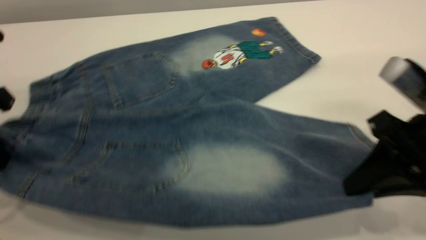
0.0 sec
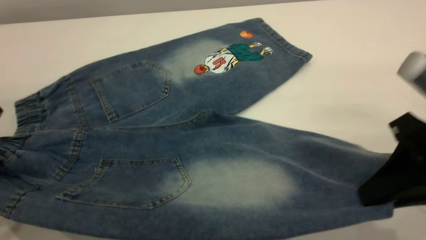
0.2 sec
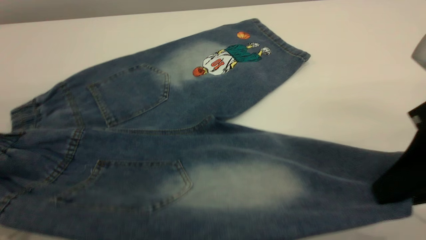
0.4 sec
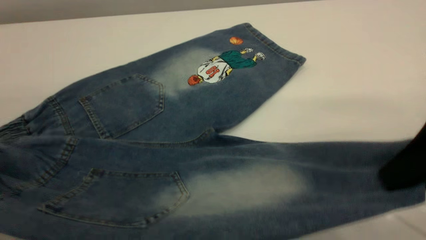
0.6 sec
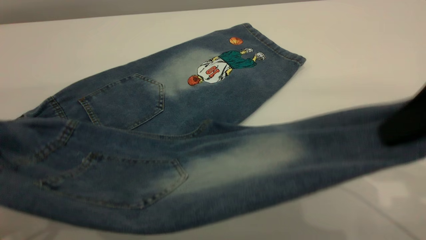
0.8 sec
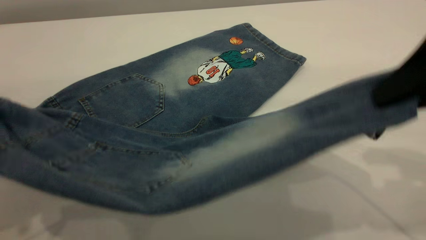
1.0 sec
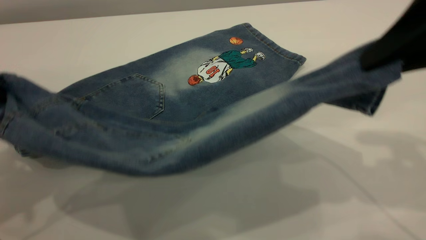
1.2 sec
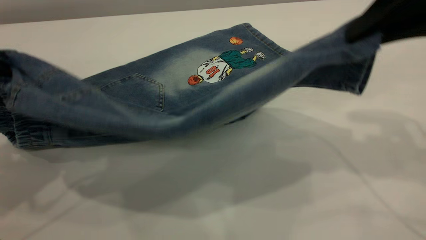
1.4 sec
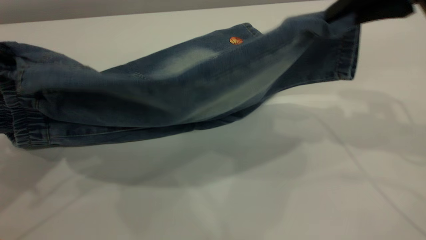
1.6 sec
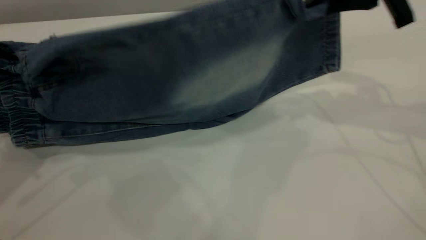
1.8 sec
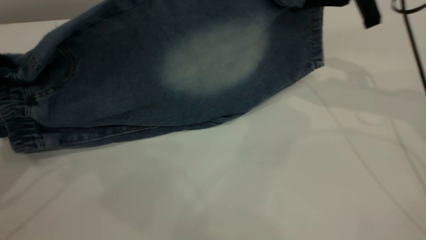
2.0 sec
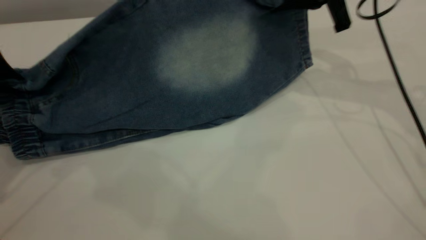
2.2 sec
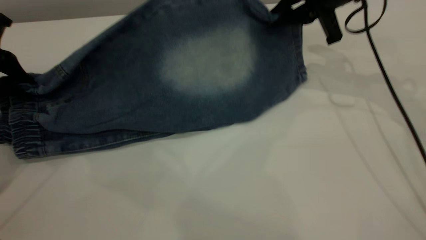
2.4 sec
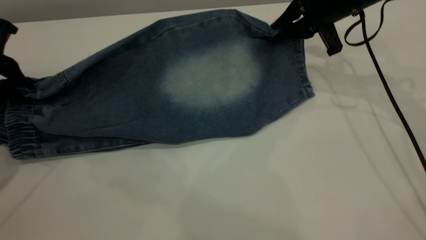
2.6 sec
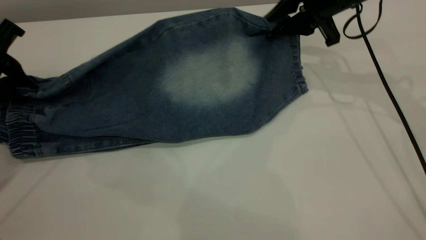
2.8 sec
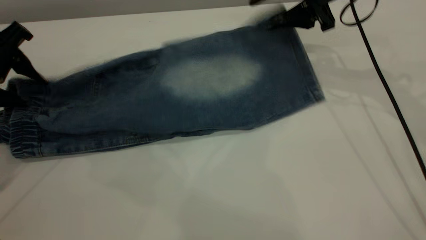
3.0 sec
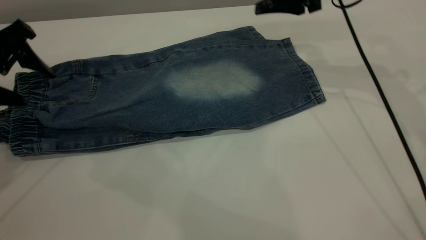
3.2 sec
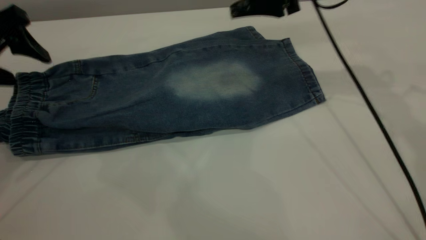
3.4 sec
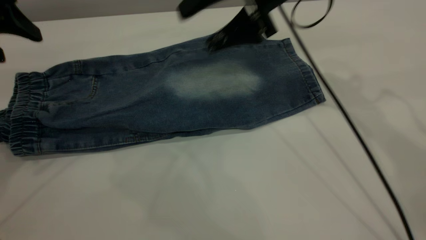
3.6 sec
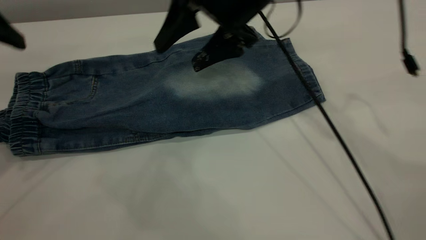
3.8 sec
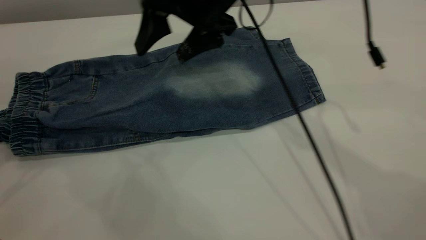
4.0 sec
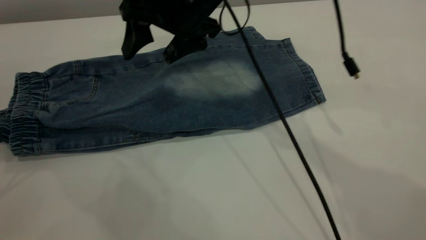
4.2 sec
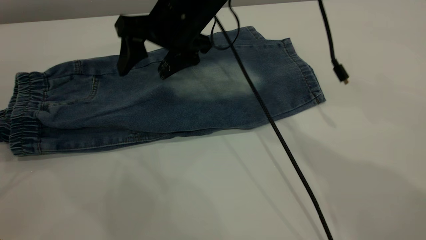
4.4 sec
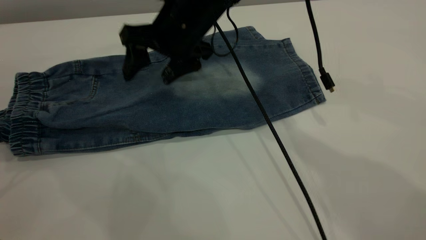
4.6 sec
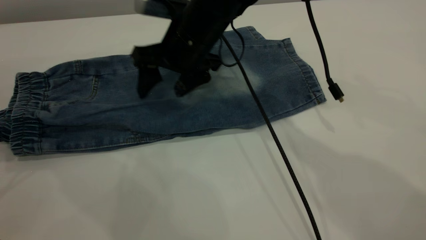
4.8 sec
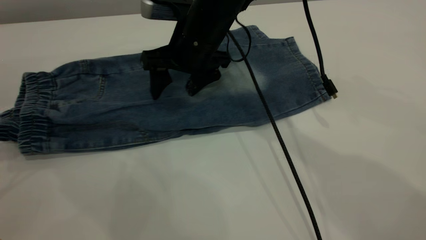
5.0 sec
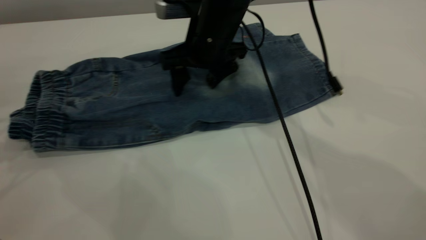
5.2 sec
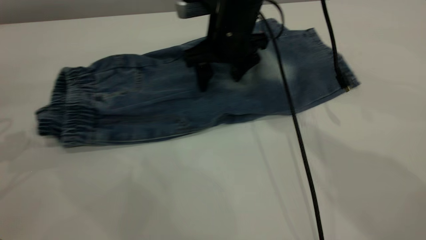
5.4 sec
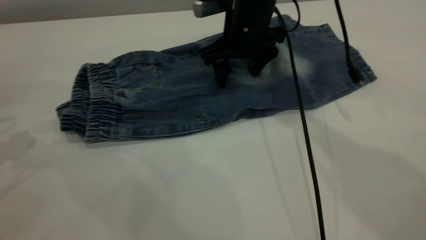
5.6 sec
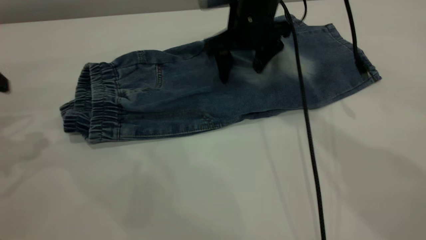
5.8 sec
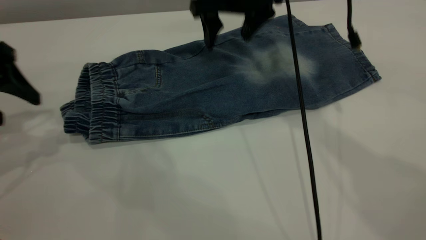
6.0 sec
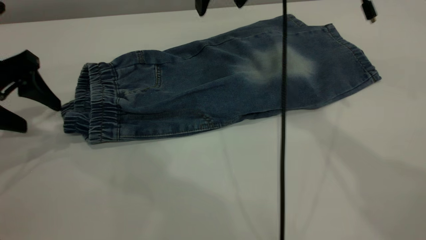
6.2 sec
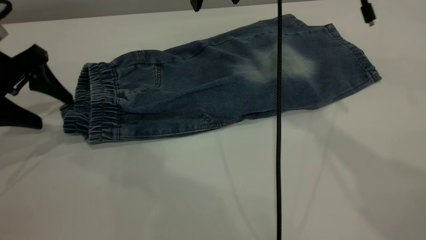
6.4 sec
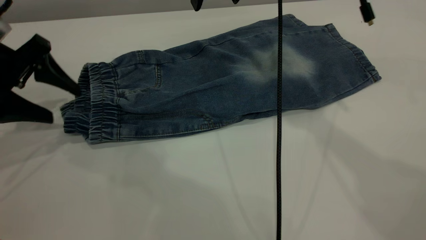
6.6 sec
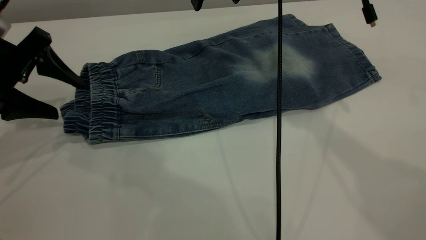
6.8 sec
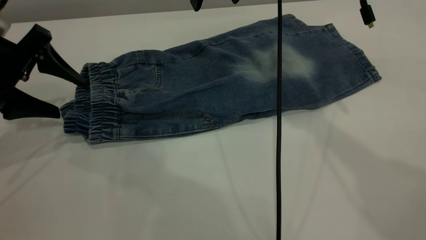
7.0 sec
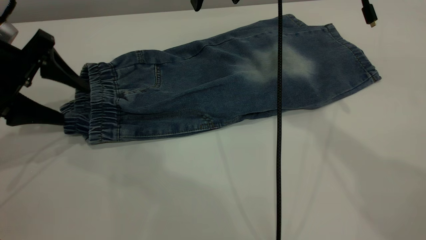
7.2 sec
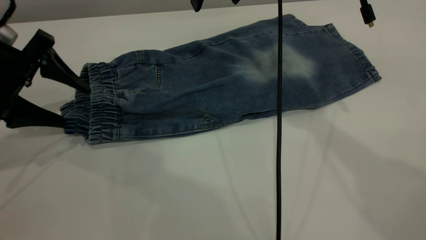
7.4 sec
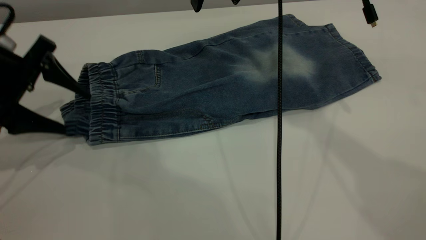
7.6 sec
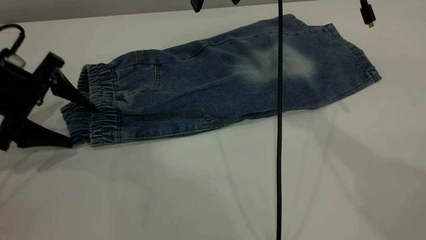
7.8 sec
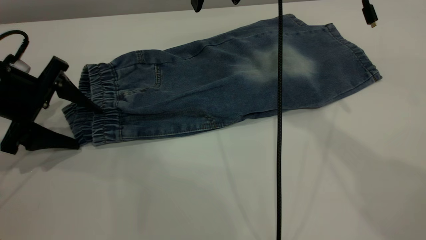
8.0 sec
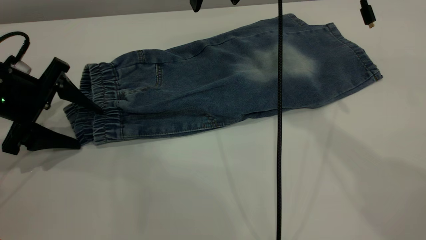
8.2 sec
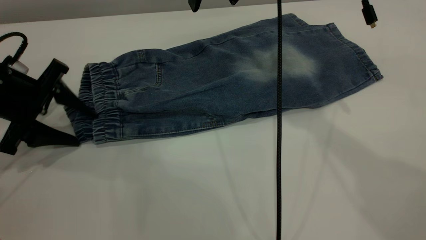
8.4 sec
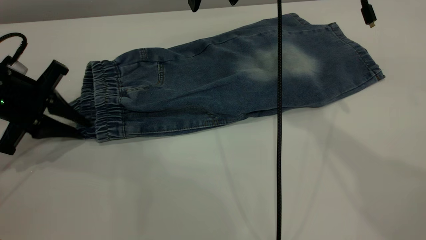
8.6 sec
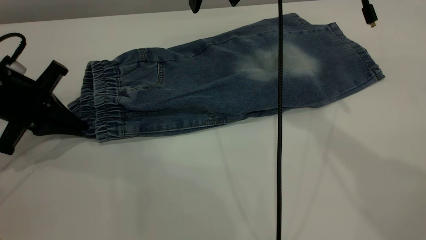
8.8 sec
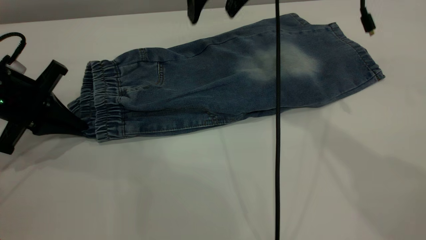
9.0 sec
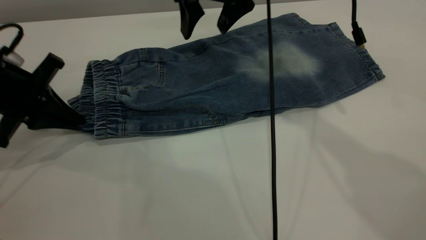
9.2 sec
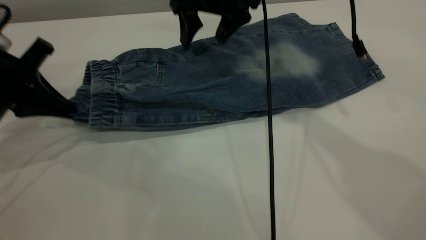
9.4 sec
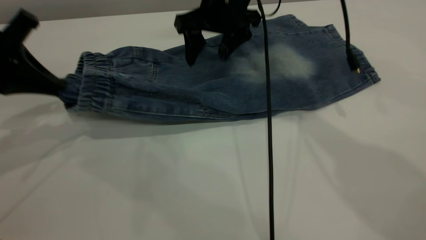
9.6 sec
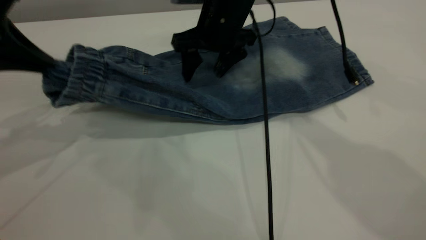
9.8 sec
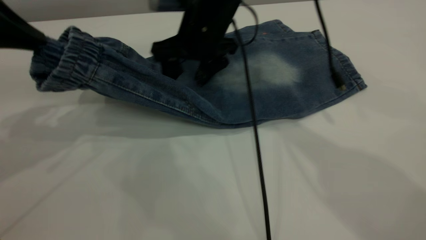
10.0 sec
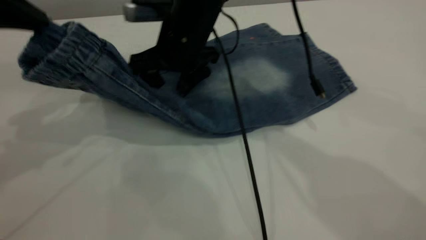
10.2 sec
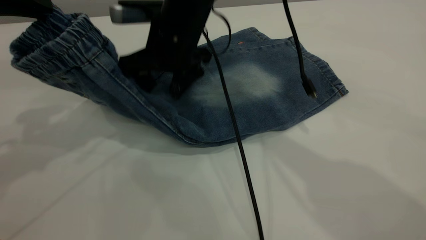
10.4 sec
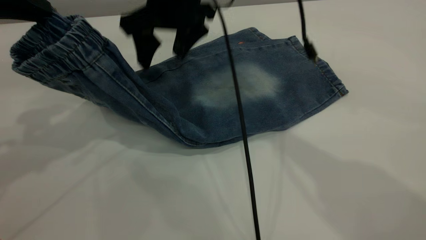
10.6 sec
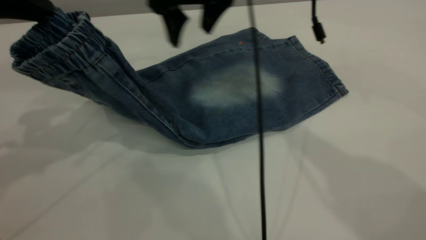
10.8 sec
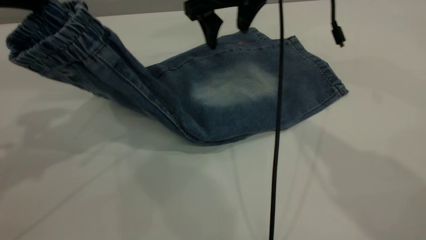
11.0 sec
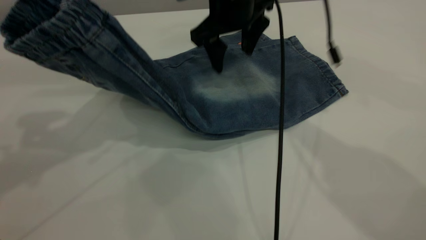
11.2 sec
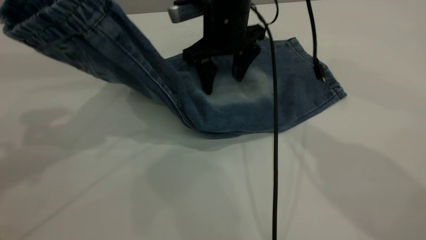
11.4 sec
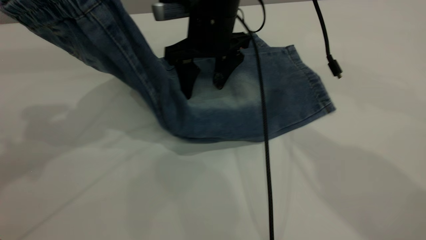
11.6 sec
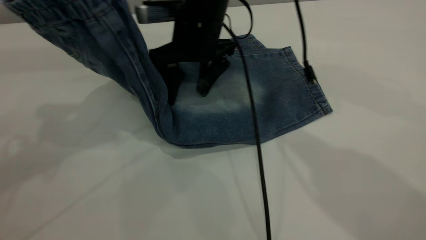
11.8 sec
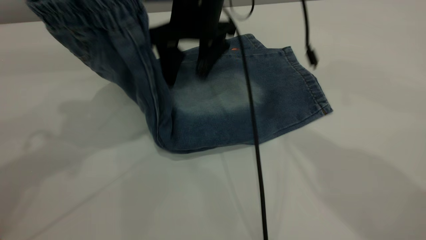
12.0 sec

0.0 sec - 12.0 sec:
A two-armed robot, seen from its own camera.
Step, 0.0 sec - 3.4 sec: Fold the bottom of the pants upward.
0.0 sec - 1.6 sec: The right gripper heads upward and forward, covering approximately 15 cm; the left gripper heads upward, covering roughly 5 cm.
1.6 sec - 3.0 sec: The left gripper heads downward and forward, covering about 10 cm, and opens its fingers. Meanwhile the right gripper goes approximately 15 cm forward and downward, and opens its fingers.
3.0 sec - 4.4 sec: The left gripper is displaced to the left and upward by some 10 cm. Meanwhile the right gripper heads to the left, covering about 20 cm.
4.4 sec - 6.0 sec: The right gripper moves to the right, about 10 cm. The left gripper is displaced downward and to the right by roughly 5 cm.
7.6 sec - 9.0 sec: The left gripper closes up.
9.0 sec - 10.4 sec: The right gripper is displaced to the left, downward and backward by about 10 cm. The left gripper travels upward by roughly 15 cm.
10.4 sec - 12.0 sec: The left gripper goes roughly 5 cm to the right, while the right gripper moves up and down over about 5 cm, changing direction 2 times.

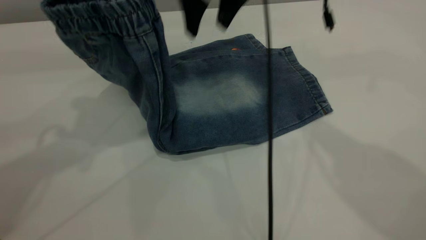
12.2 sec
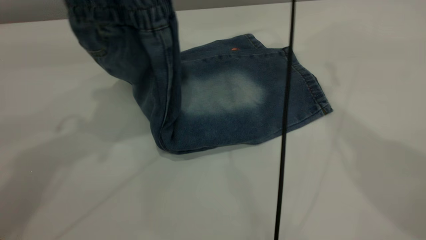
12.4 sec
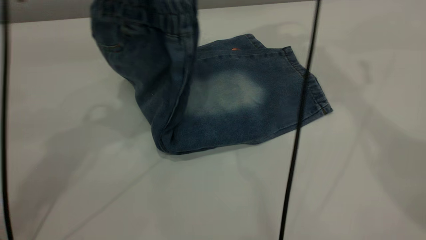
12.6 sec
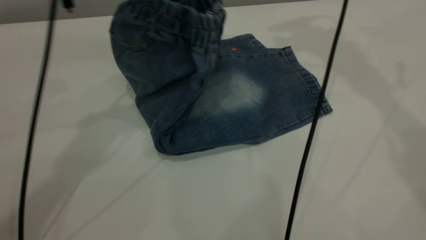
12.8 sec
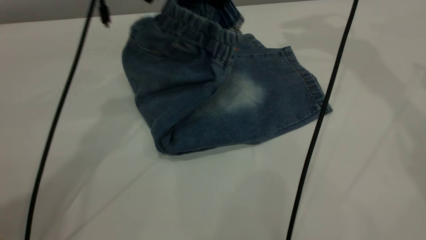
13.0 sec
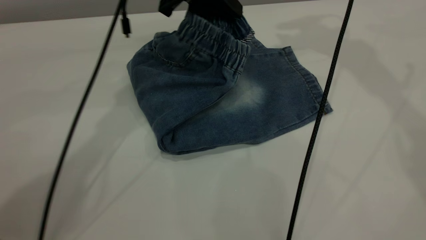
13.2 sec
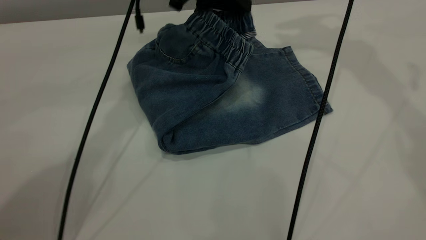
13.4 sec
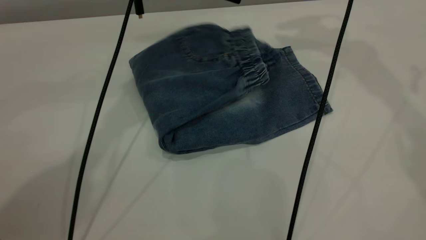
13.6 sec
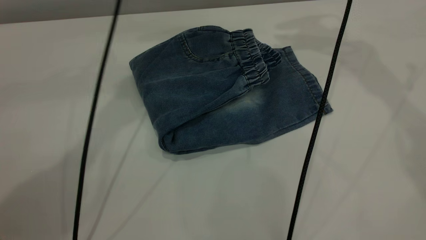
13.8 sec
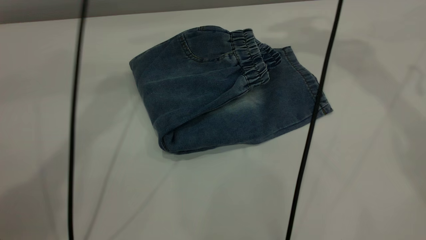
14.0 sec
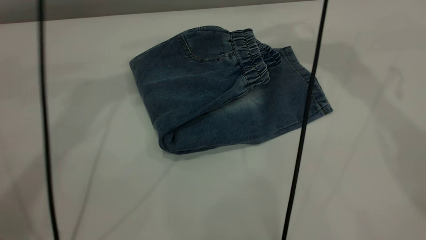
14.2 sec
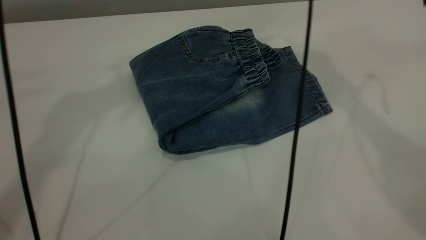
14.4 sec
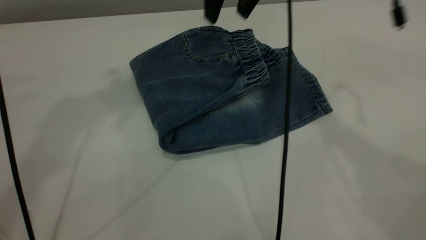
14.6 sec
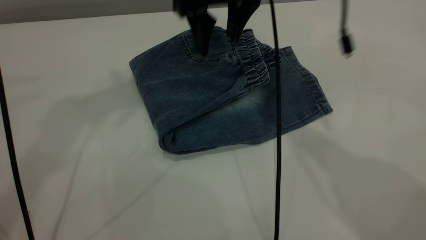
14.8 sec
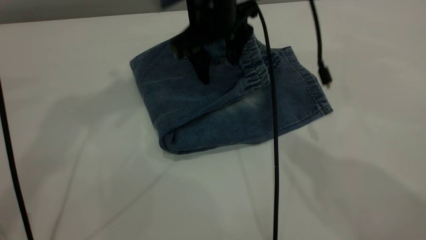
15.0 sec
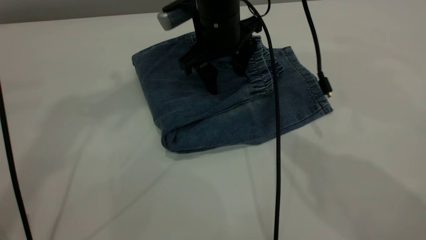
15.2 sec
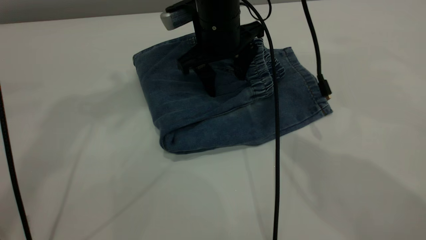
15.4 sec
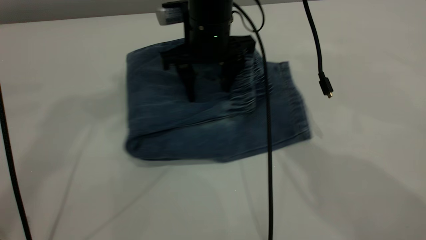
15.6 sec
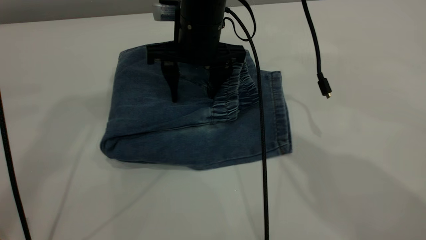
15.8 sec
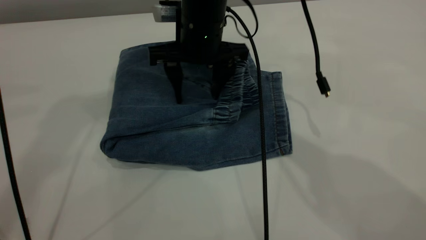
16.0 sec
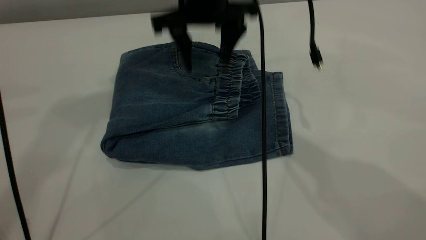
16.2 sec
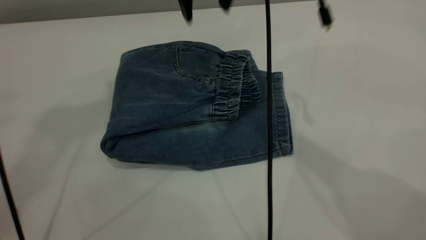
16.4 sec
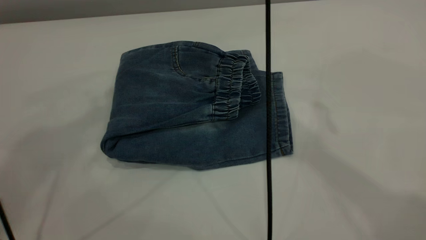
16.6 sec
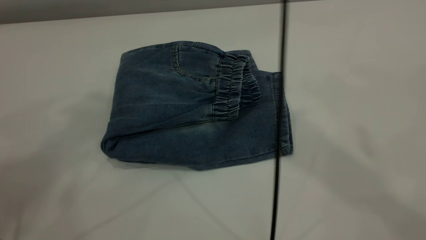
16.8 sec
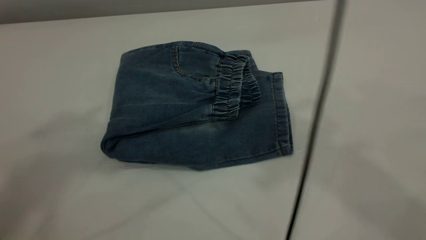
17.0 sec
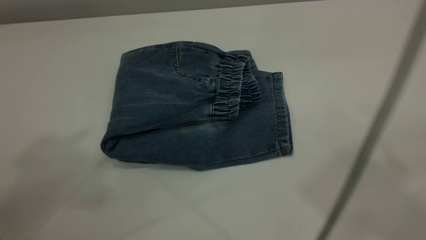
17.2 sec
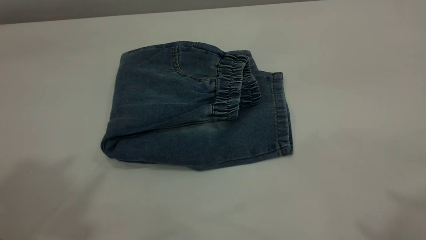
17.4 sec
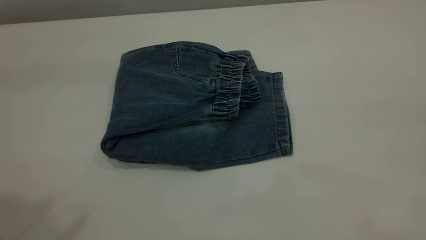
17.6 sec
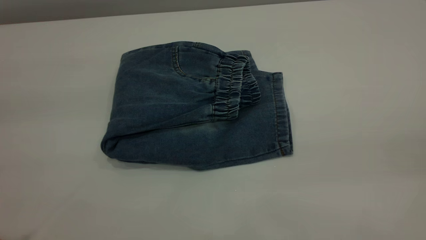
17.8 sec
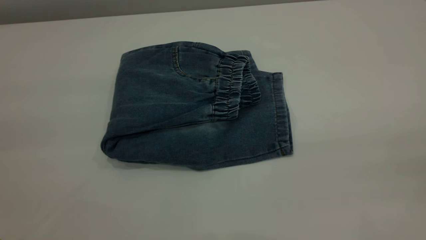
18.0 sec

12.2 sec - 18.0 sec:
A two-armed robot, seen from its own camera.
Step, 12.2 sec - 14.4 sec: Fold the pants from left to right.
12.2 sec - 13.6 sec: The left gripper moves to the right, forward and downward, some 20 cm, and opens; the right gripper is displaced to the right and upward by about 20 cm.
13.6 sec - 15.0 sec: The right gripper shifts roughly 30 cm downward, to the left and backward. The left gripper shifts some 20 cm upward.
15.0 sec - 16.6 sec: The left gripper shifts approximately 10 cm backward and upward. The right gripper heads upward, covering about 20 cm.
16.6 sec - 18.0 sec: The right gripper shifts approximately 50 cm backward and to the right, while the left gripper travels backward and downward by some 30 cm.
